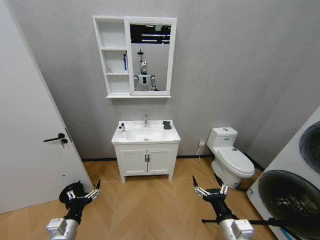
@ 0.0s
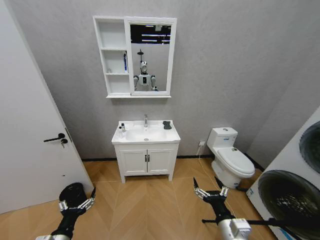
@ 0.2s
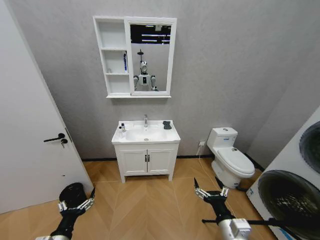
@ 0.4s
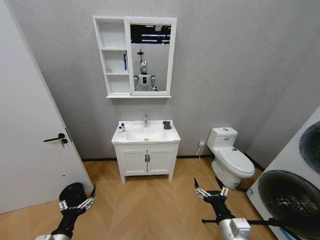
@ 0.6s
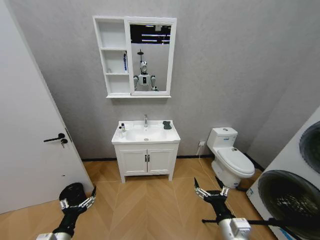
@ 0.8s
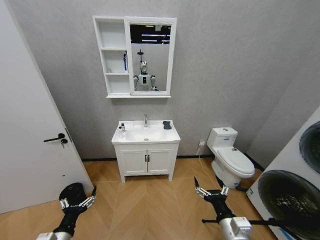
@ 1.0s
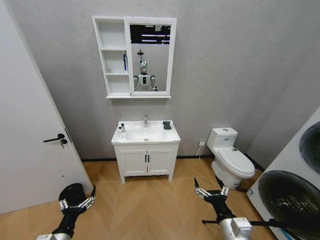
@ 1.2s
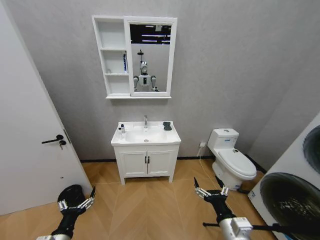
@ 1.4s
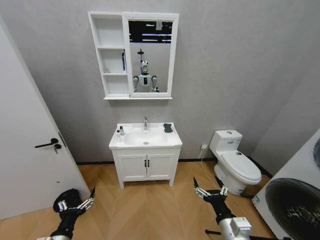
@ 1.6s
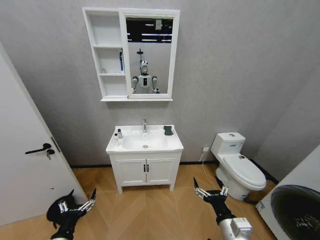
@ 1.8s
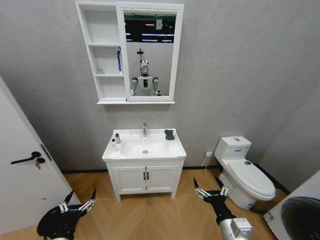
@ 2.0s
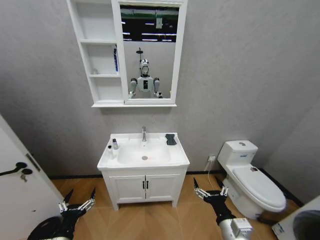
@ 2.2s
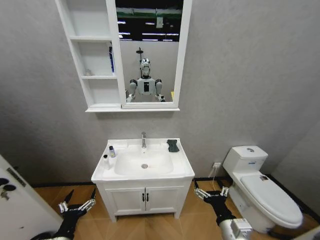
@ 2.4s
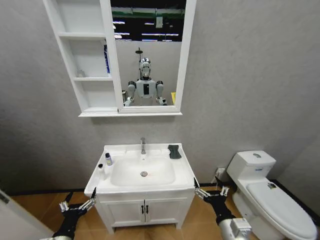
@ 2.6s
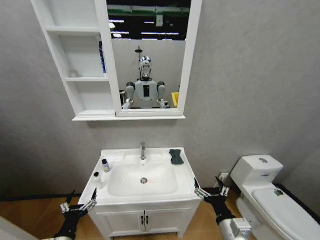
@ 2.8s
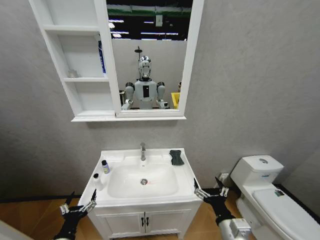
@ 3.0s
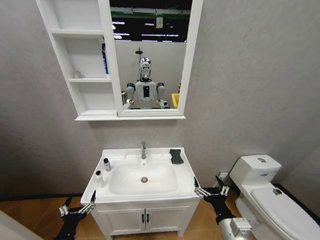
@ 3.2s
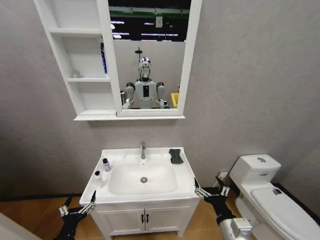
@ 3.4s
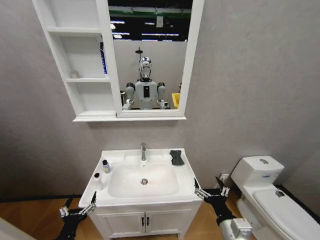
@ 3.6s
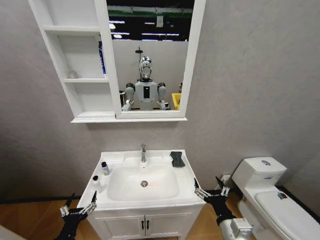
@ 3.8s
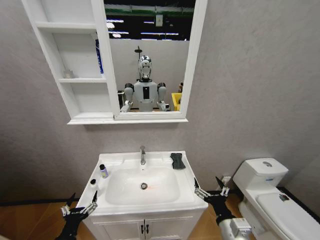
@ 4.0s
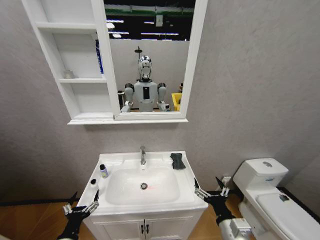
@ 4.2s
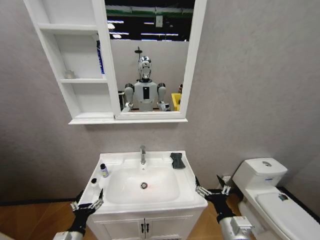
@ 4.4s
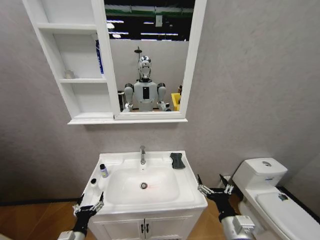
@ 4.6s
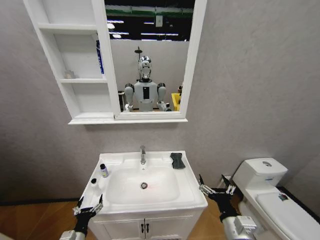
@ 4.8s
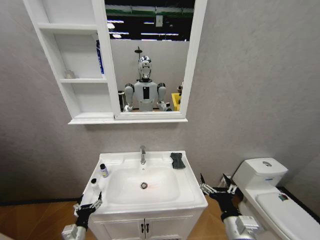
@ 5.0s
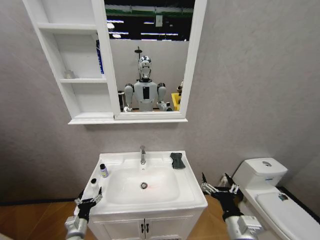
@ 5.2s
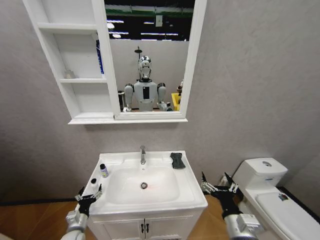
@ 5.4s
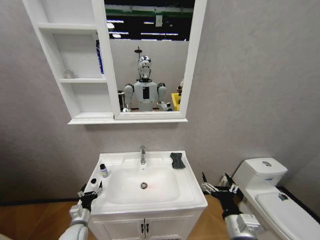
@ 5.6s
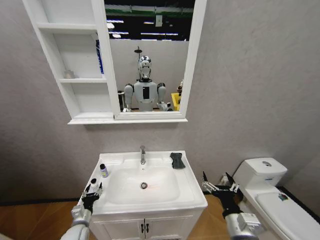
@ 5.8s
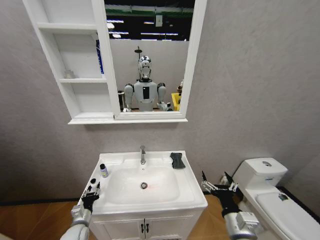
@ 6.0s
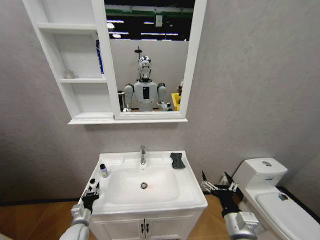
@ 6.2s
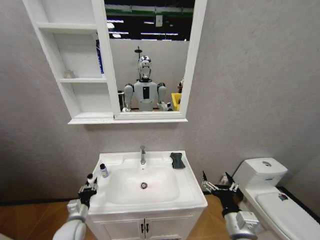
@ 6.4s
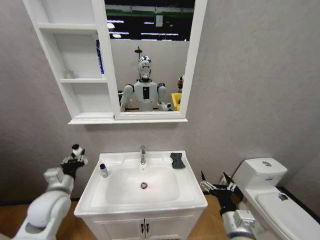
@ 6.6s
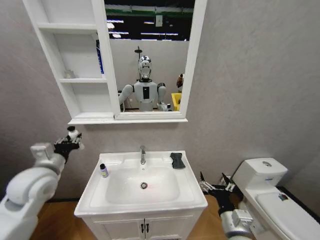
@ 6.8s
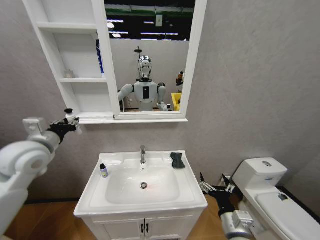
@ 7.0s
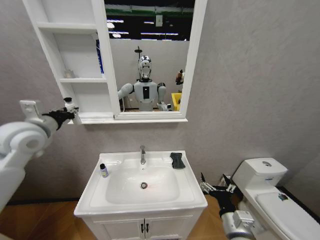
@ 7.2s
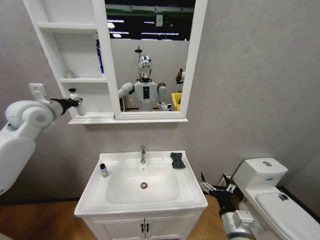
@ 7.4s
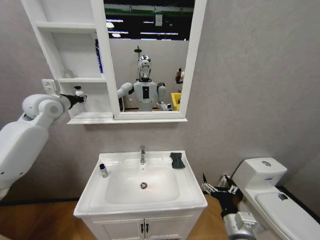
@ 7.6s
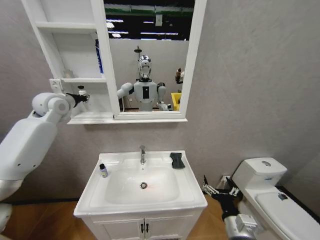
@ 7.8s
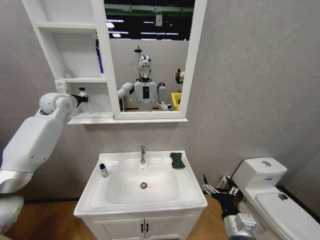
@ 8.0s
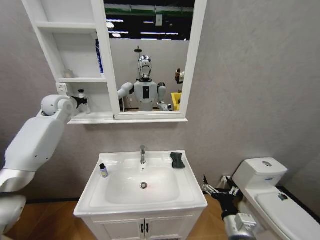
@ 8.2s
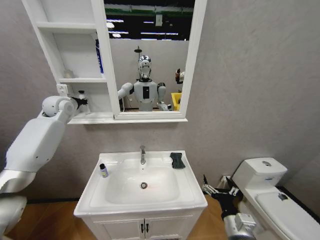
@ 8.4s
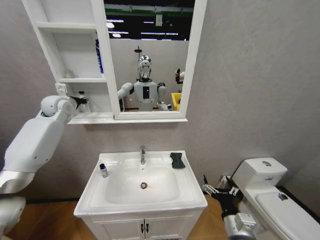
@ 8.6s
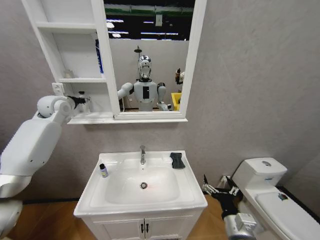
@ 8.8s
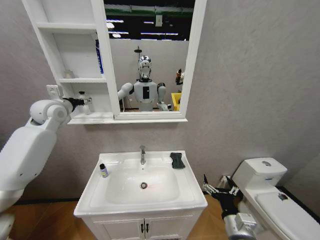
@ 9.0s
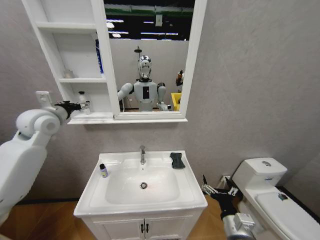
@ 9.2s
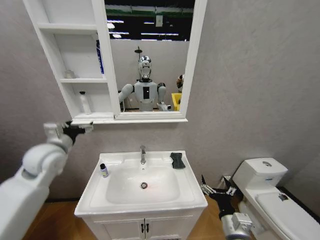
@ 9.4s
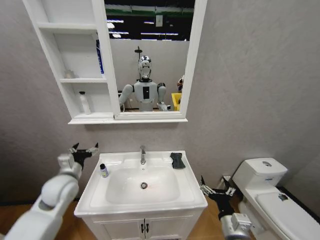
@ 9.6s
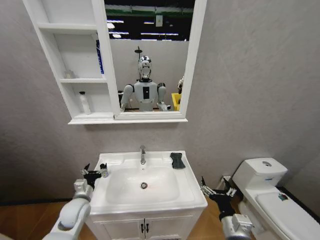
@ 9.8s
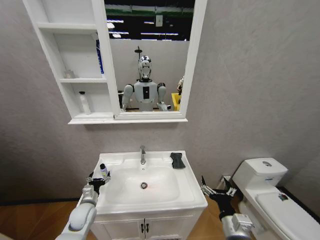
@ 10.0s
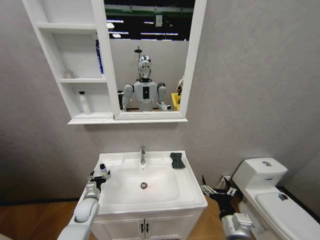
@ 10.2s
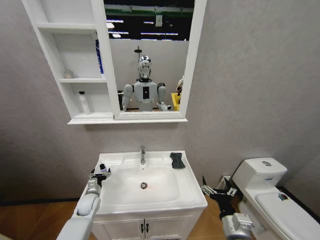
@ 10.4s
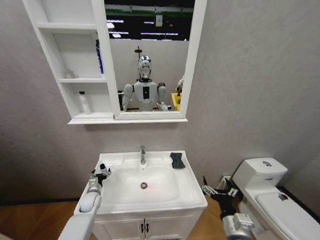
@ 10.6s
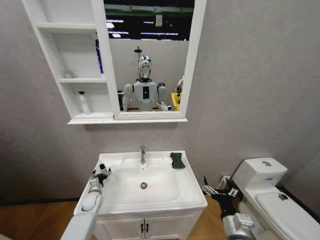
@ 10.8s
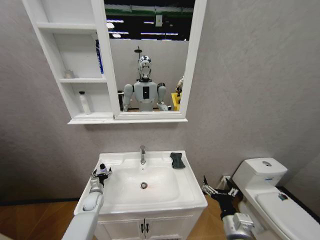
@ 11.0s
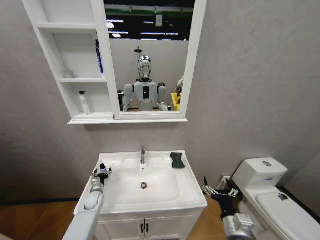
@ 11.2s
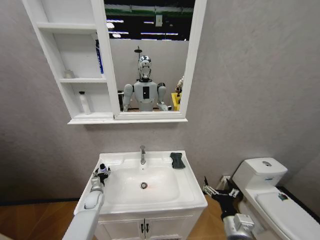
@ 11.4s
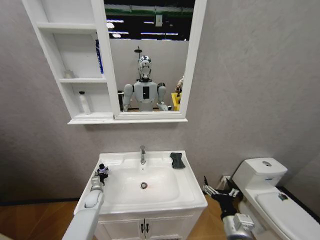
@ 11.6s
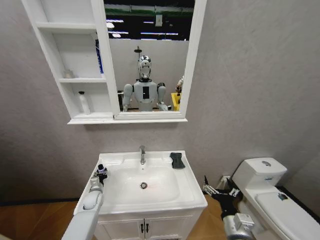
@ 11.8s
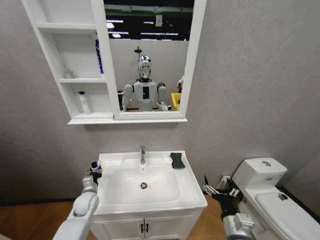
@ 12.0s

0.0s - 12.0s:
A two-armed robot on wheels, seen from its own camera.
Task of the whole recording: Move facial cleanser and shampoo from washbasin to cabinet, then wipe washbasin with towel.
3.0s - 4.4s: The grippers move only a little.
4.4s - 6.0s: The left gripper goes some 15 cm forward and downward, and closes its fingers.
6.0s - 7.6s: The left gripper heads upward, covering approximately 50 cm.
7.6s - 9.0s: The left gripper opens.
9.0s - 10.4s: The left gripper shifts roughly 40 cm downward.
10.4s - 12.0s: The left gripper closes its fingers.

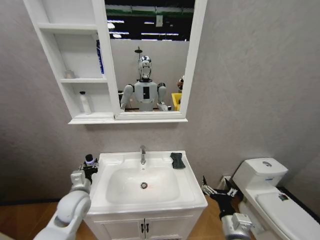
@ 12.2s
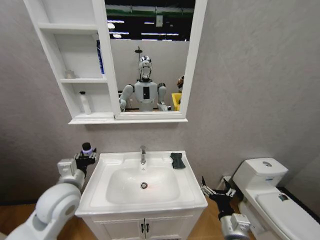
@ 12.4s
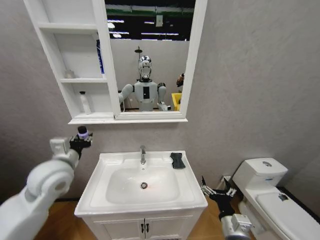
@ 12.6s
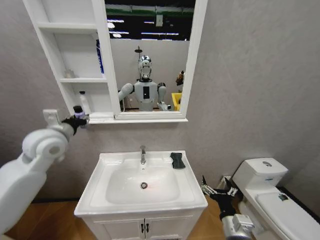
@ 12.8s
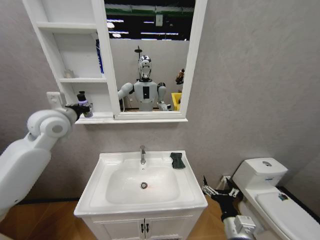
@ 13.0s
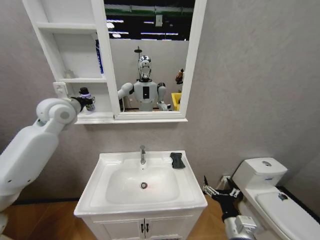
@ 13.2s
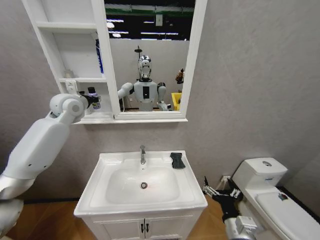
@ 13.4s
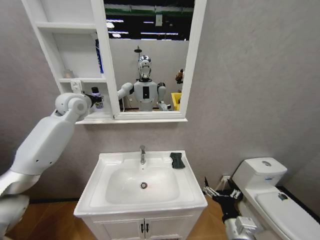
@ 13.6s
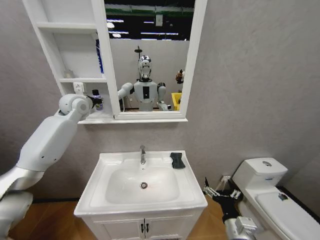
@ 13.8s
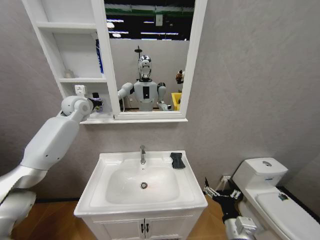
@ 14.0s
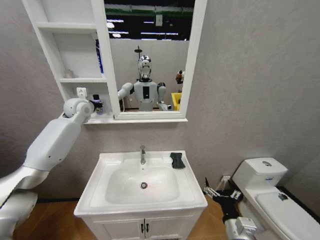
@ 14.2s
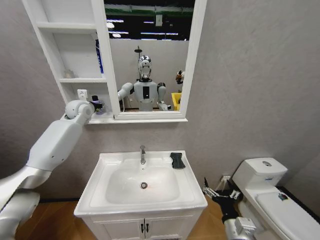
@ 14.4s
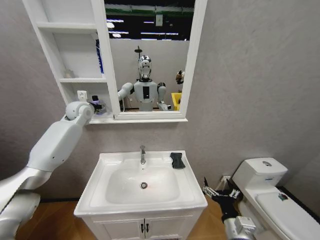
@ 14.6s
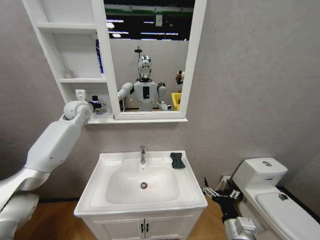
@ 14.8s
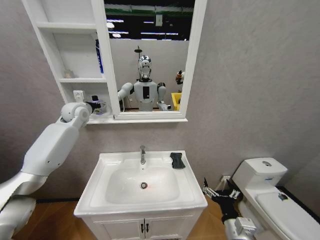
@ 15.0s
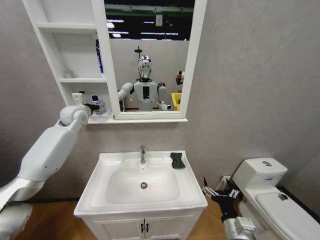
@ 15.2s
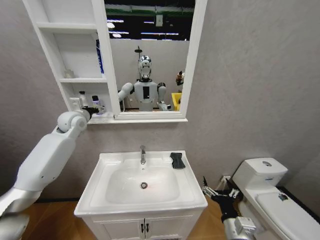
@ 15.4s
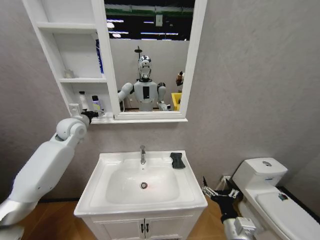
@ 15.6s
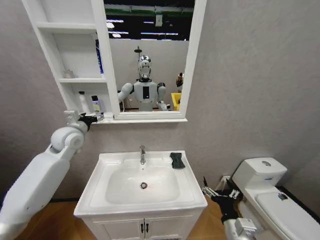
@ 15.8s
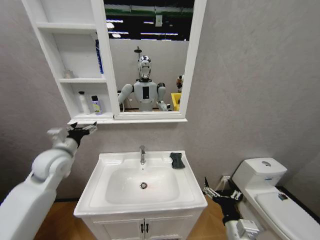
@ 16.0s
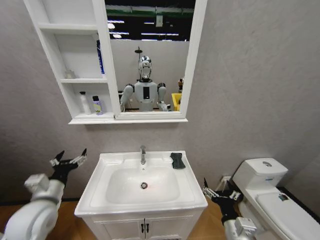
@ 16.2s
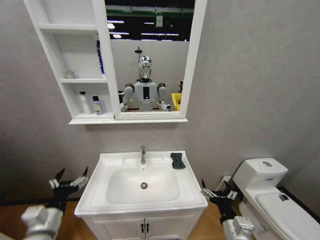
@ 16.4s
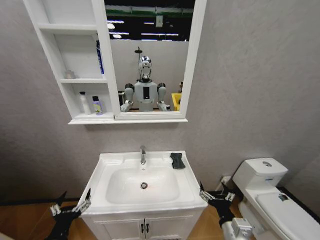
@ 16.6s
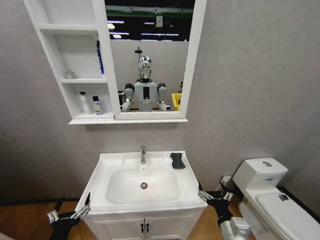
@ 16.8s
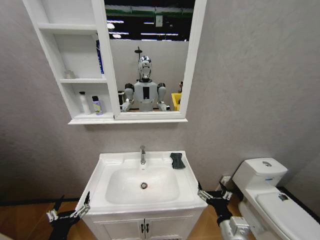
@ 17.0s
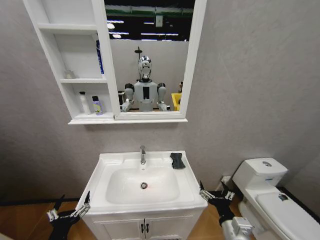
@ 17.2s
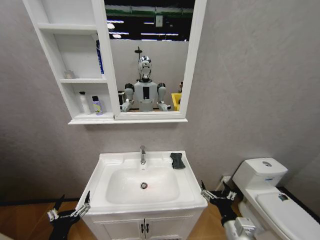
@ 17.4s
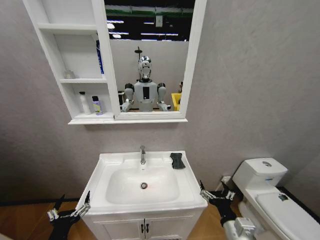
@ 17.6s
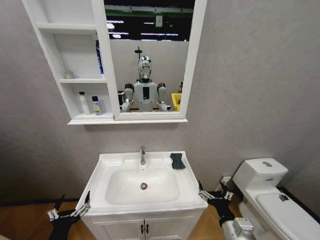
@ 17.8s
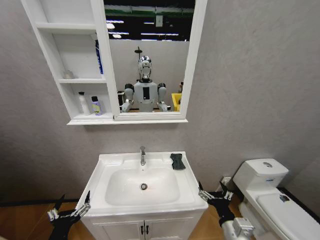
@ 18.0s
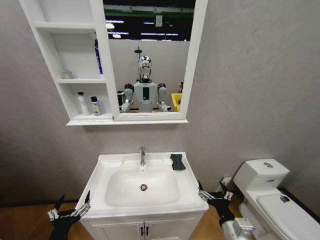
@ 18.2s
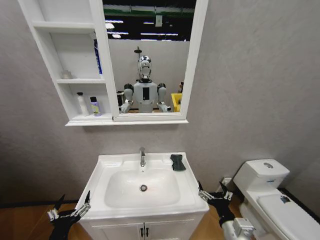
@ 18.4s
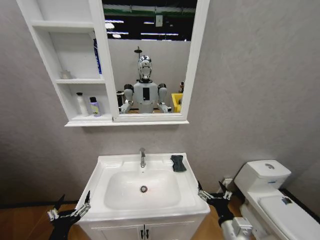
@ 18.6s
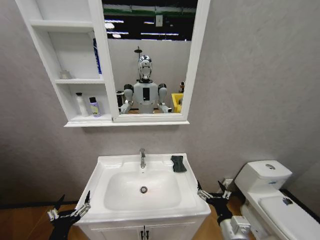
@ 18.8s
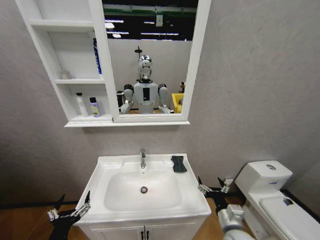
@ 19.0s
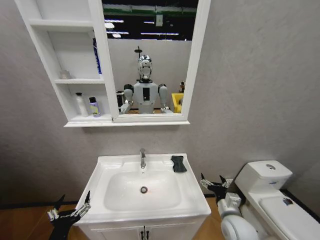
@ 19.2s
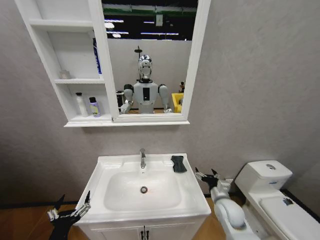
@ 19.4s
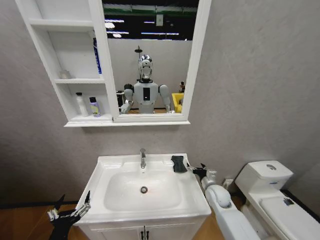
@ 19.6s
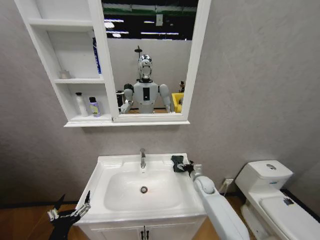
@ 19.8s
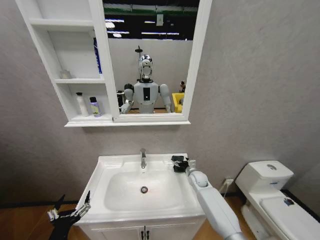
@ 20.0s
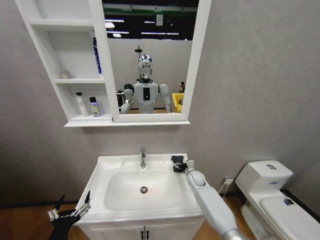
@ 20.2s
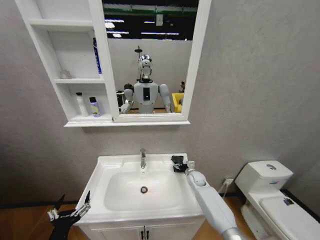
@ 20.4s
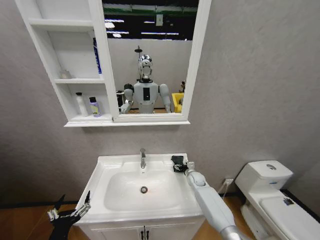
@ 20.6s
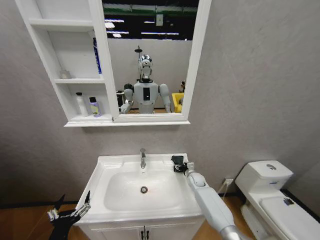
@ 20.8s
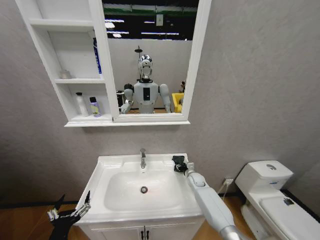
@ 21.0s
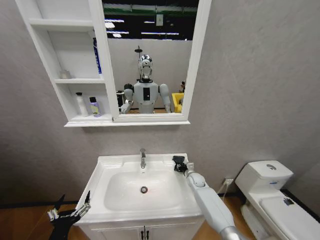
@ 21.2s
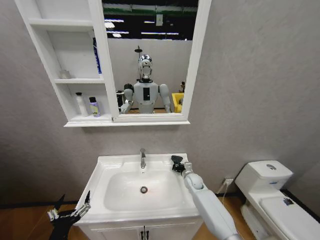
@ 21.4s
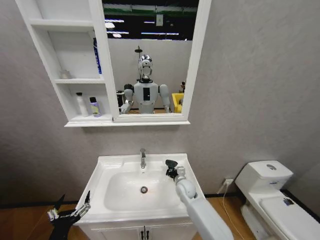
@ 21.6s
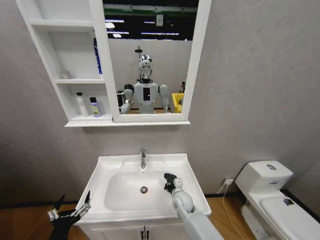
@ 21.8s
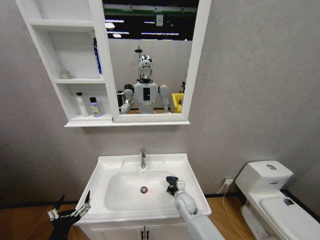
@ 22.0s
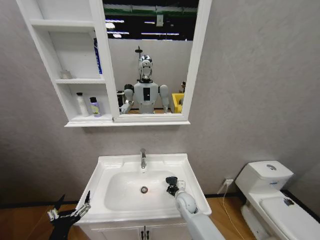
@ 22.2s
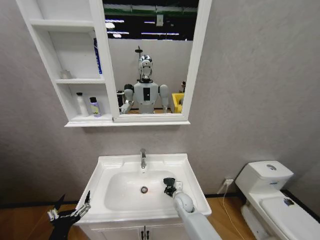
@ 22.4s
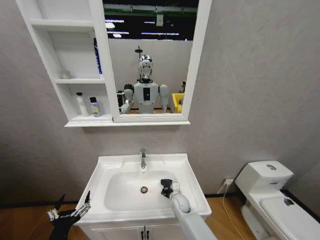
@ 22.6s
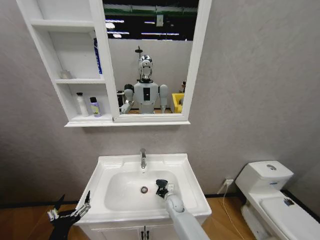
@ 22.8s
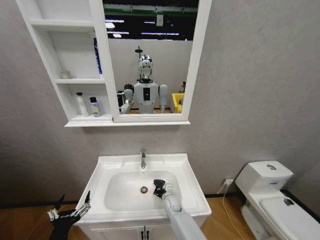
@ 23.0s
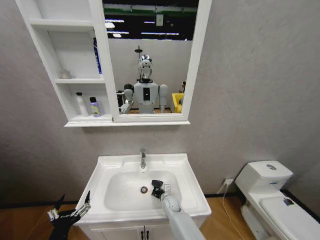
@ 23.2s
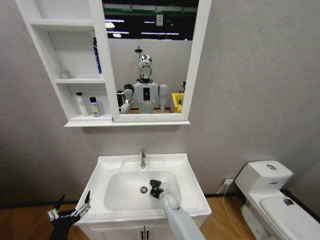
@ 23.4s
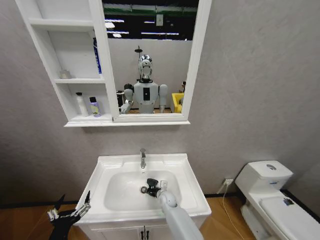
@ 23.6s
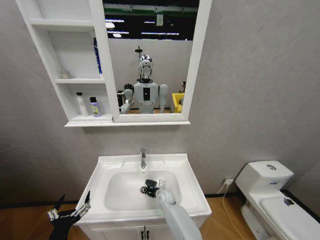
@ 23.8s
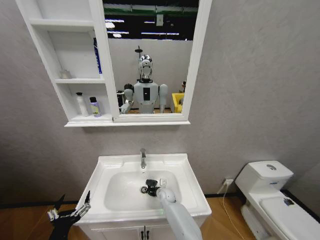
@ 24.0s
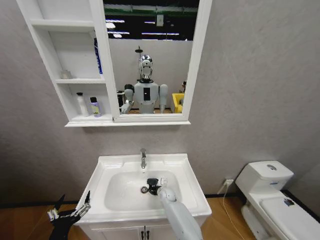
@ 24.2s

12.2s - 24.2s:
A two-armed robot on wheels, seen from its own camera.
Task of the whole recording: Move facial cleanser and shampoo from washbasin to cabinet, then wipe washbasin with towel.
12.2s - 13.8s: The left gripper moves upward and forward, some 40 cm.
13.8s - 15.2s: The left gripper opens its fingers.
15.2s - 16.6s: The left gripper heads backward and downward, covering approximately 50 cm.
16.6s - 18.2s: The grippers make only small movements.
18.2s - 19.8s: The right gripper moves forward, some 30 cm.
19.8s - 21.2s: The right gripper shifts about 5 cm forward, and closes.
21.2s - 22.6s: The right gripper travels to the left and backward by about 15 cm.
22.6s - 24.2s: The right gripper travels forward by roughly 5 cm.
